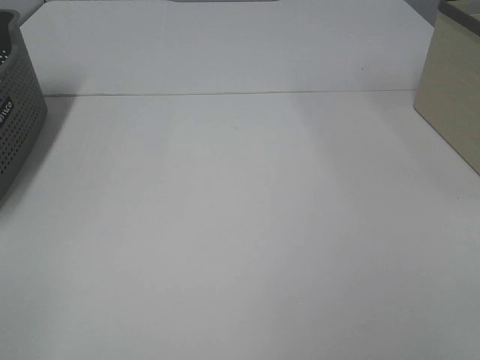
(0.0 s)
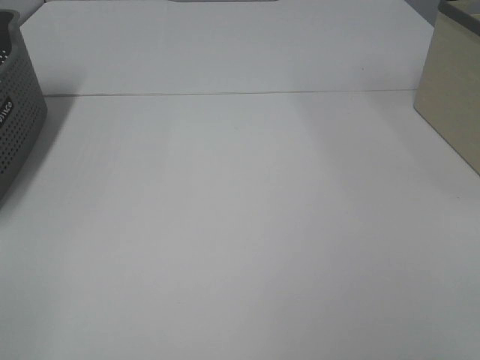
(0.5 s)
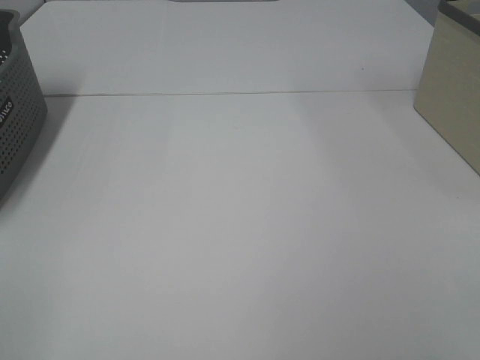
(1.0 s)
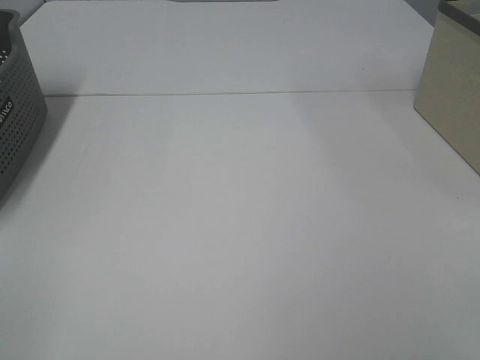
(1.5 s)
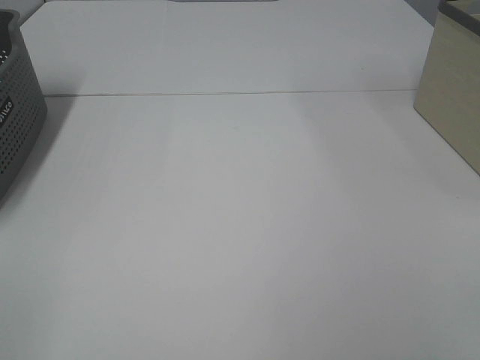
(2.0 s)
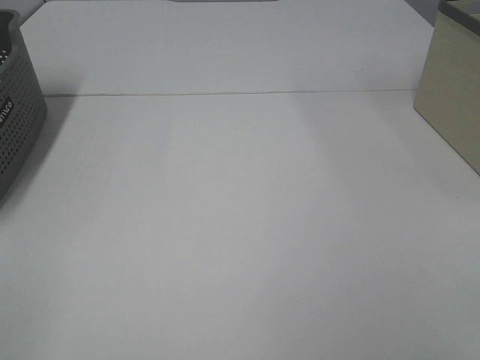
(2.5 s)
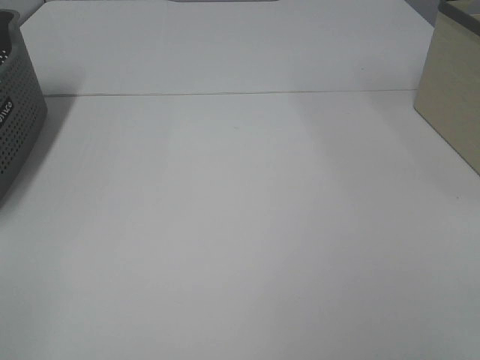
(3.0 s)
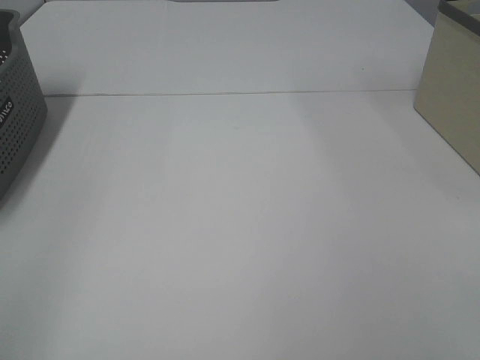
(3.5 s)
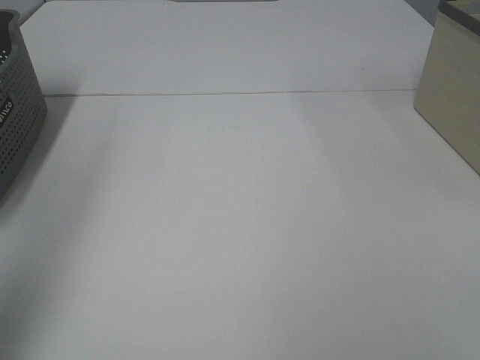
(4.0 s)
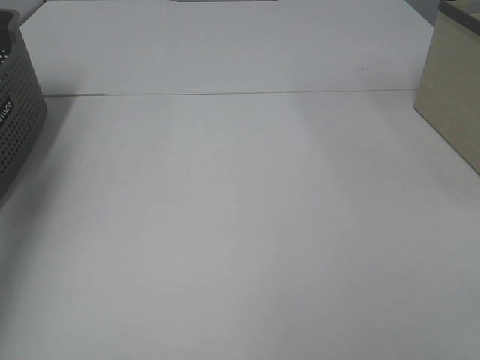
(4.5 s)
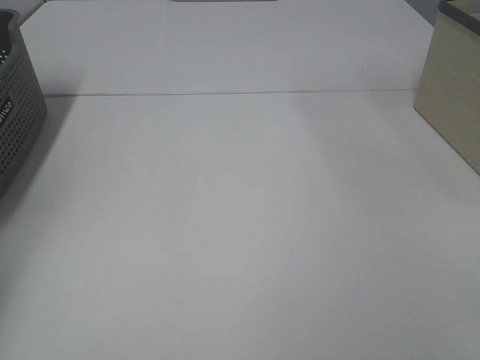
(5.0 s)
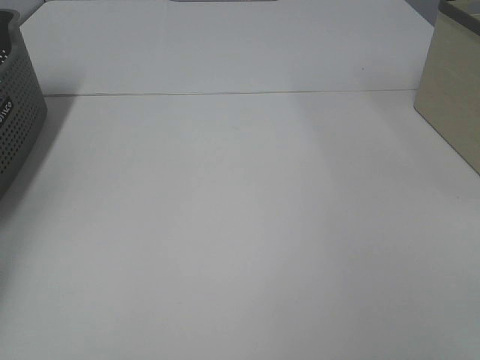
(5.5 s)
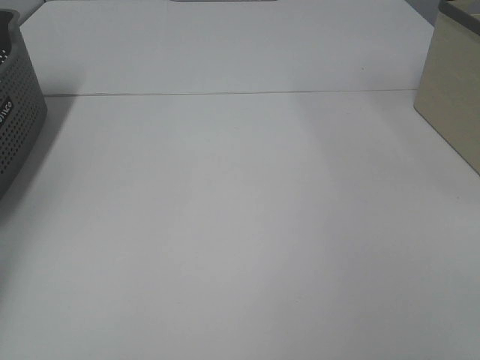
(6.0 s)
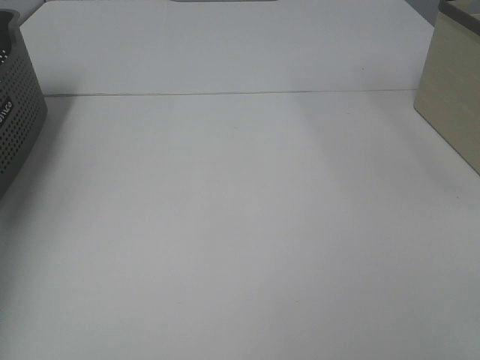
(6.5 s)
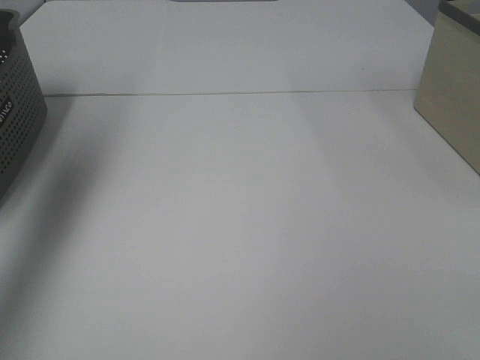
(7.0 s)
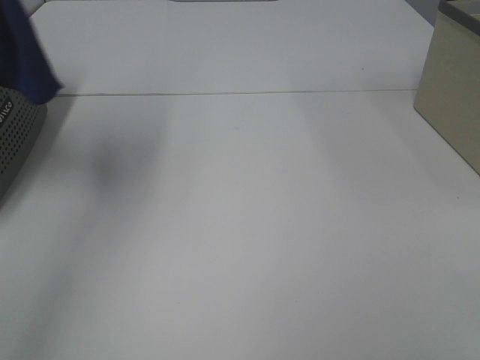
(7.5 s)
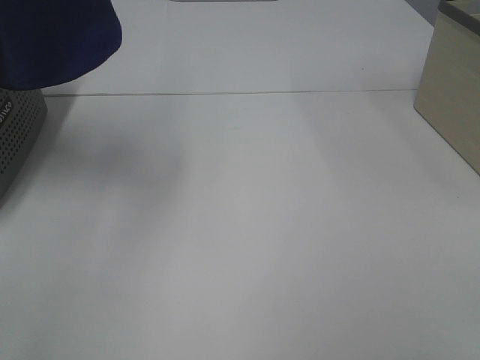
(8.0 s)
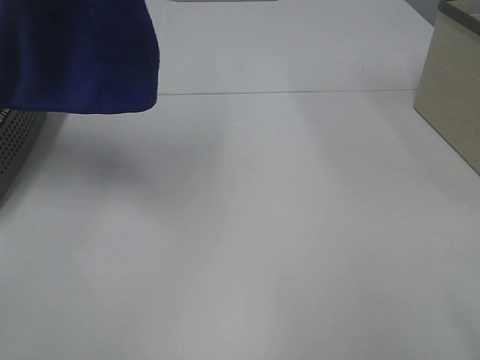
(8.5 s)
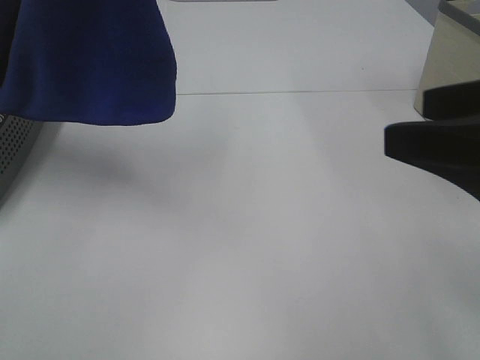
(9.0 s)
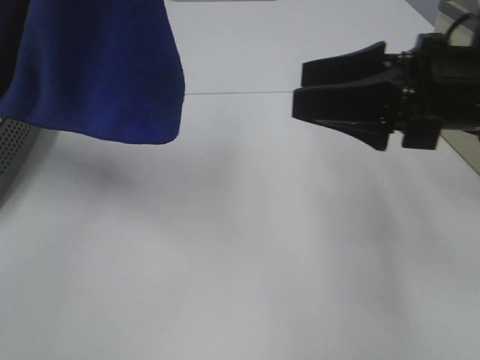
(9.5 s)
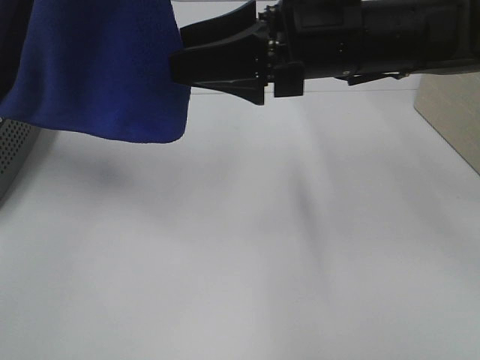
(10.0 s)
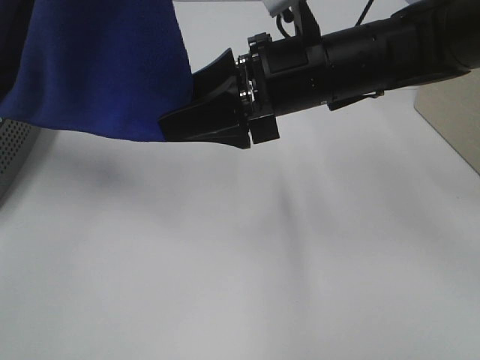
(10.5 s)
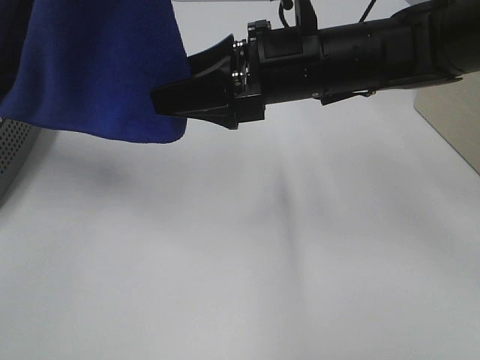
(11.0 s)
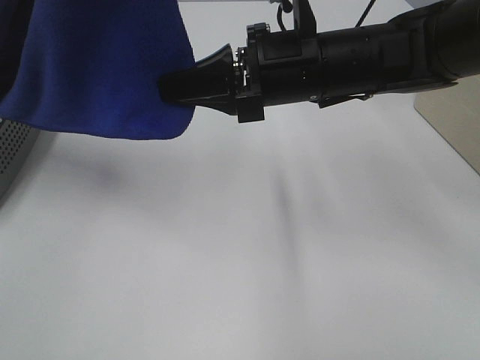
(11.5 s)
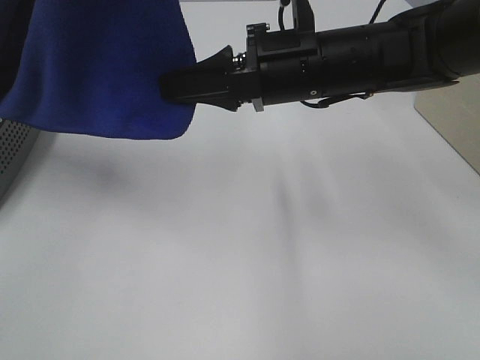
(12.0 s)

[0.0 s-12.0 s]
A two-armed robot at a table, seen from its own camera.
Task of the whole recording: Remove the towel and place it.
0.0 to 2.0 s: Both grippers stay about where they are.
2.0 to 4.0 s: The left gripper goes roughly 25 cm forward and upward.
4.0 to 6.0 s: The left gripper goes about 35 cm forward, downward and to the left, and closes up.
6.0 to 8.0 s: The left gripper goes roughly 40 cm upward and to the right.
8.0 to 10.0 s: The left gripper heads to the right, covering some 5 cm, while the right gripper is displaced forward and to the left by some 35 cm.
10.0 to 12.0 s: The right gripper closes.

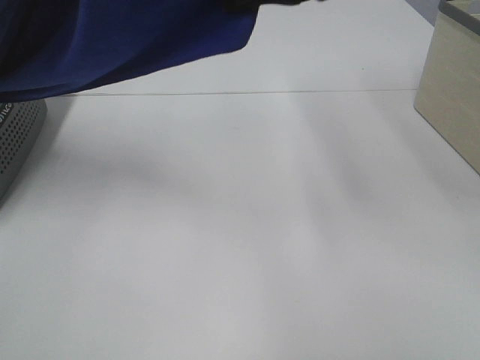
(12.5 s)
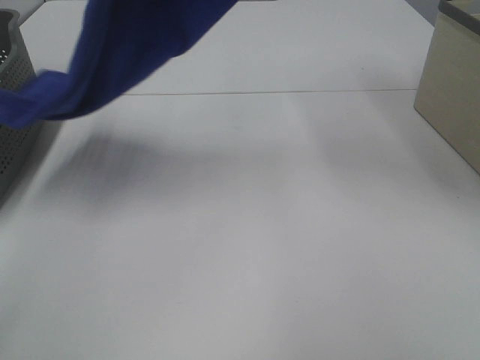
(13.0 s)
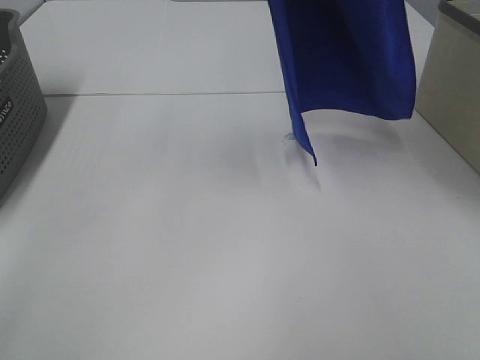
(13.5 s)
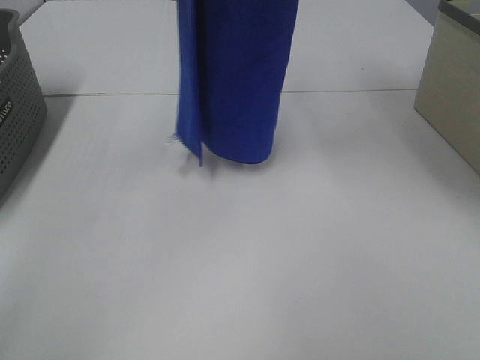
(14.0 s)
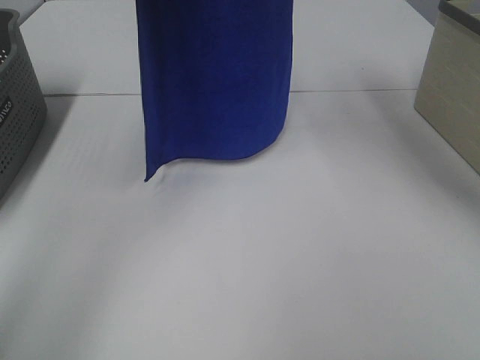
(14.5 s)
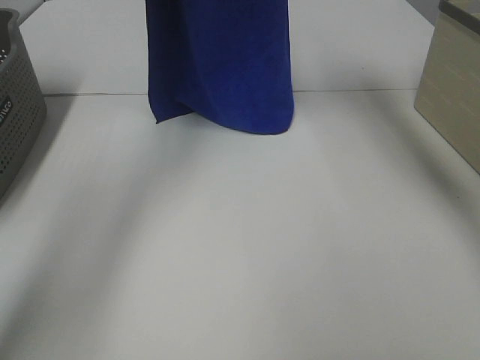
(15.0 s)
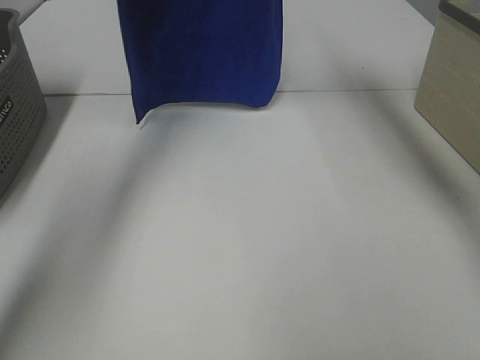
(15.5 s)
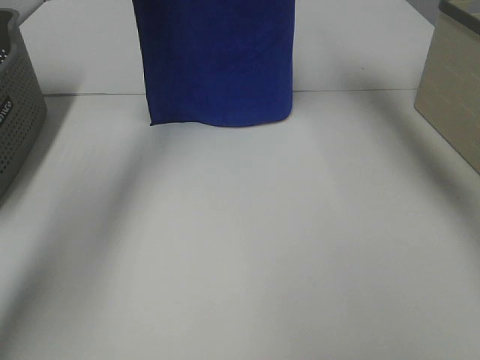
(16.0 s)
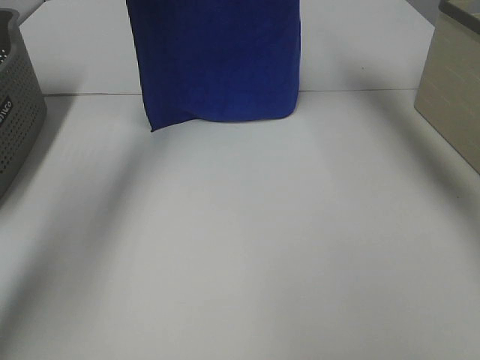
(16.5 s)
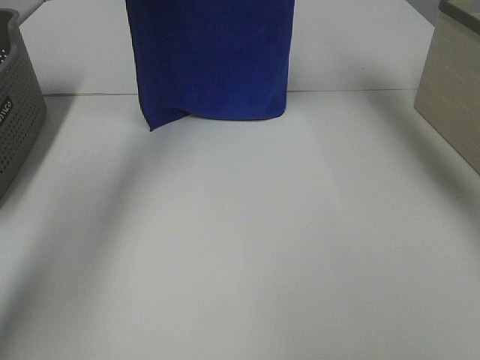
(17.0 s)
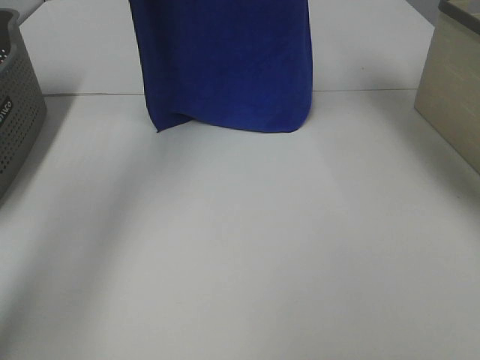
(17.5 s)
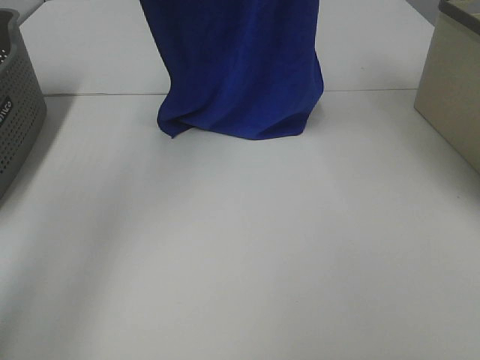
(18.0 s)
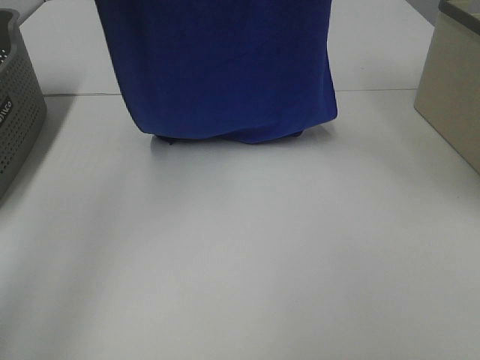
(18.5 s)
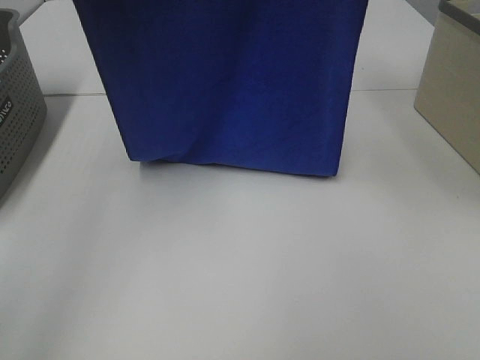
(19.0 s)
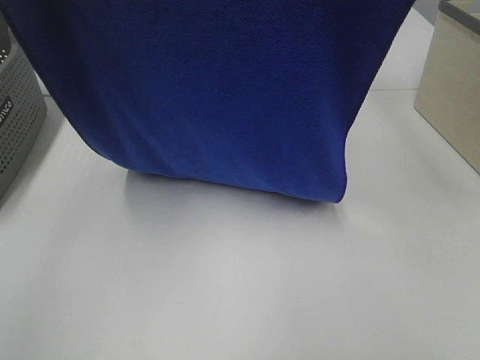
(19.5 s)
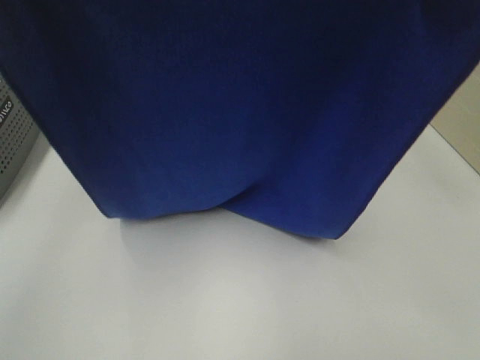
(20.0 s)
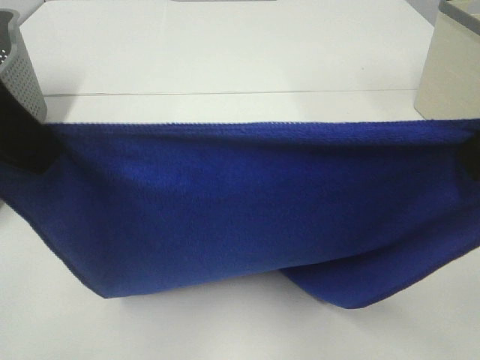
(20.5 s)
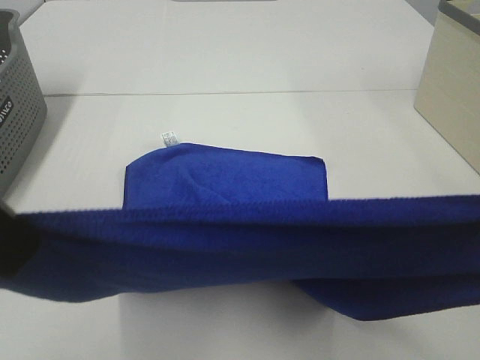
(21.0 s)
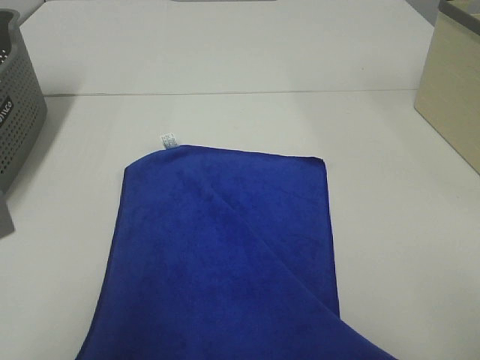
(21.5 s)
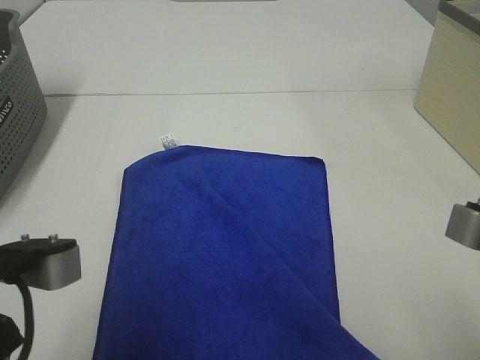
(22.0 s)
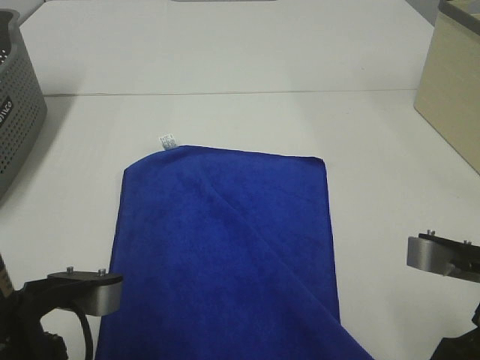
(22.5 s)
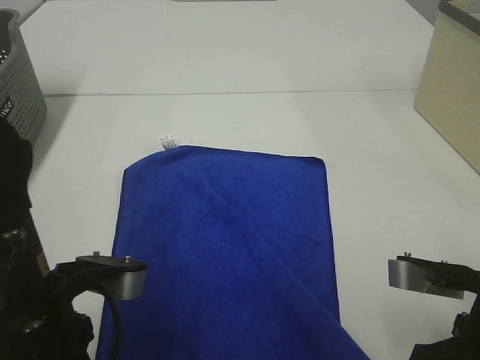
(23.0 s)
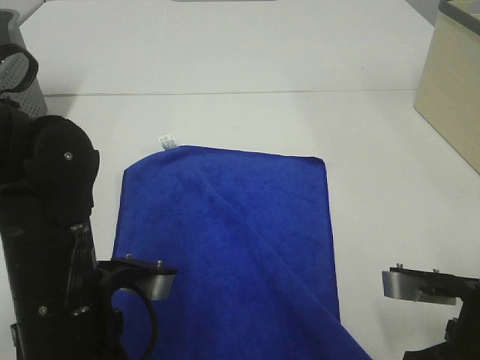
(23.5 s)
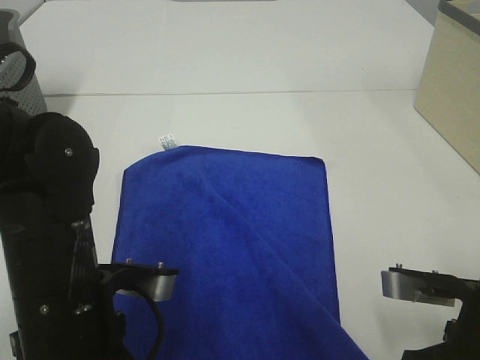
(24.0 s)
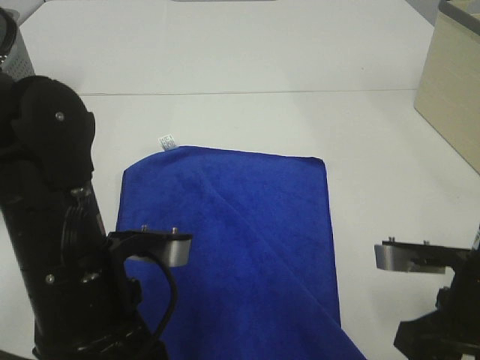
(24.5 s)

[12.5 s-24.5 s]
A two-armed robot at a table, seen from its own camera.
Task of the whole recording: Remove the towel and place it.
Step, 13.0 to 19.0 s: Left hand: spread the blue towel flat on the table.
Step, 13.0 to 19.0 s: Right hand: spread the blue towel flat on the table.
12.5 to 14.5 s: The left gripper is displaced forward by approximately 15 cm; the right gripper goes approximately 15 cm upward and forward.
14.5 to 16.5 s: The right gripper travels forward by about 10 cm; the left gripper goes some 10 cm forward and downward.
16.5 to 18.5 s: Both grippers travel together backward and upward, roughly 20 cm.
18.5 to 20.5 s: The two grippers go roughly 25 cm backward and downward.
20.5 to 22.5 s: The two grippers go approximately 20 cm downward.
22.5 to 24.5 s: The left gripper shifts about 5 cm forward, and opens; the right gripper moves approximately 5 cm, and opens.

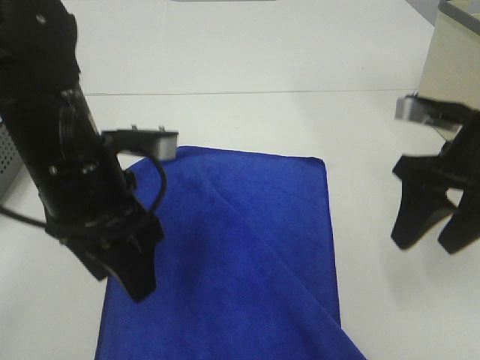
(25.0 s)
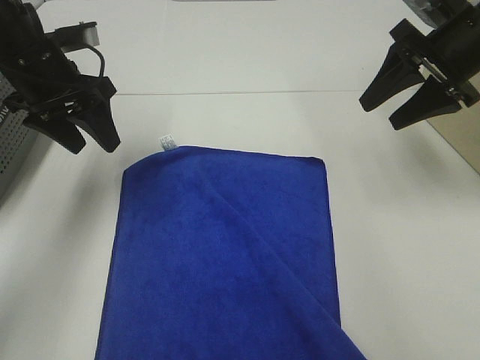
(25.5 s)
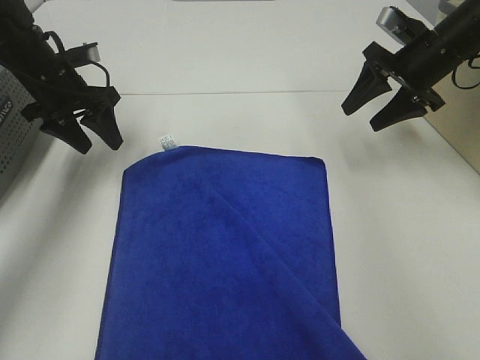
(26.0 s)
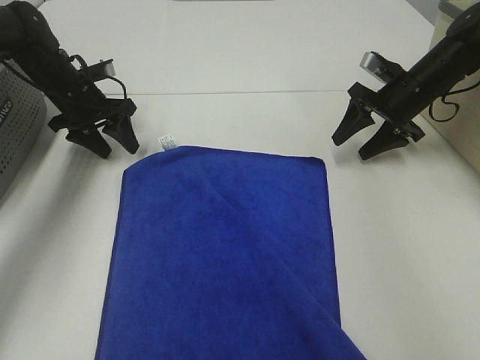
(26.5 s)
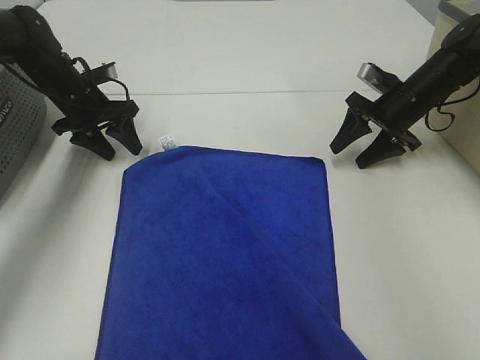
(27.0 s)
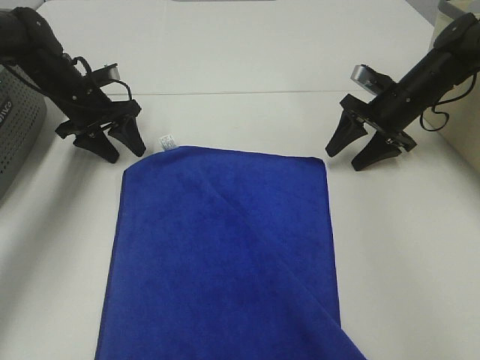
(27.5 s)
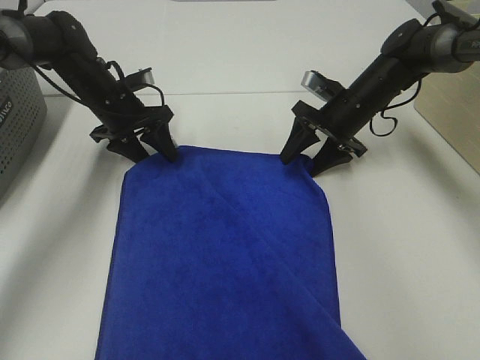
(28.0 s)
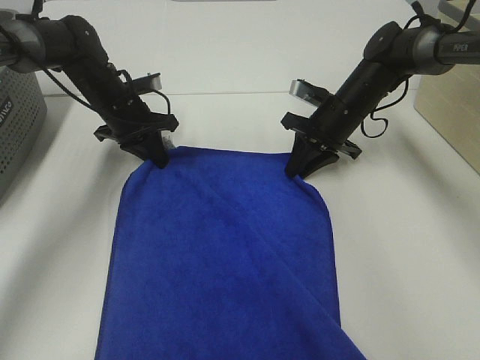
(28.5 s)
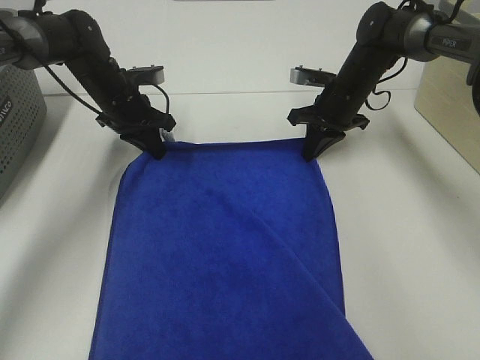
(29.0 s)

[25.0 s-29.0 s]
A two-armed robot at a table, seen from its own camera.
Task of the whole recording: Remove the towel and place it.
25.0 to 27.0 s: The left gripper shifts approximately 30 cm forward, to the left and downward, while the right gripper heads forward and downward, covering about 25 cm.
27.0 to 29.0 s: The left gripper heads to the right, covering some 5 cm, and closes its fingers. The right gripper shifts some 10 cm to the left, and closes its fingers.
